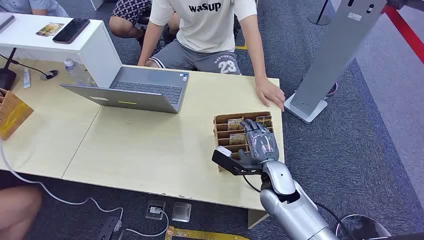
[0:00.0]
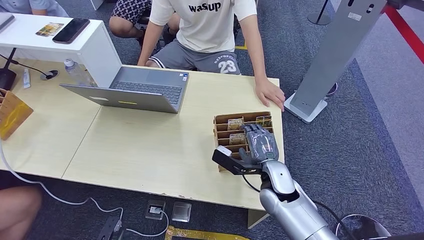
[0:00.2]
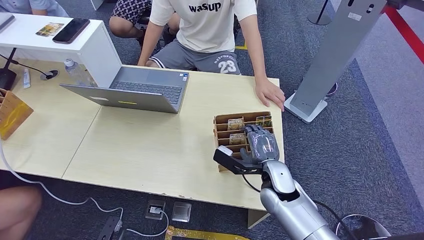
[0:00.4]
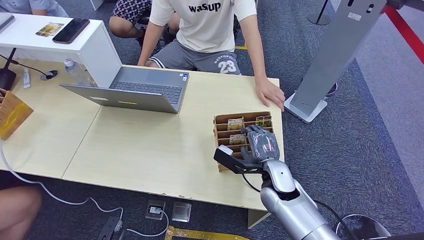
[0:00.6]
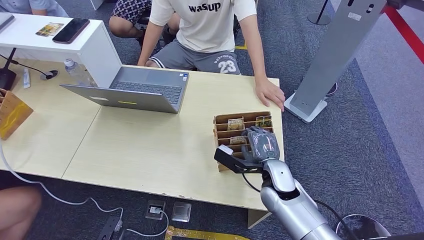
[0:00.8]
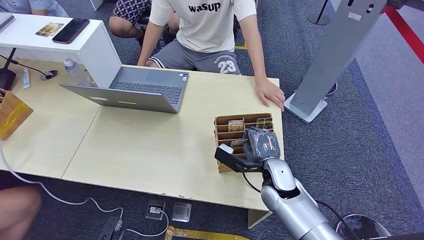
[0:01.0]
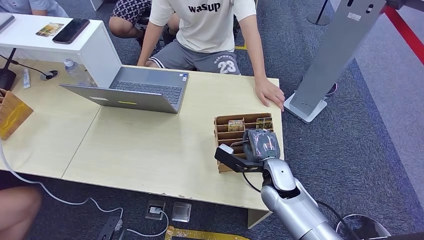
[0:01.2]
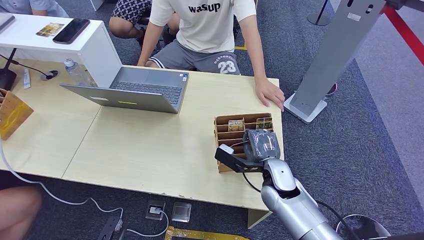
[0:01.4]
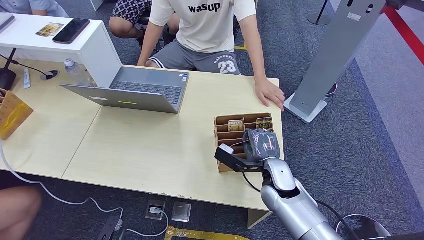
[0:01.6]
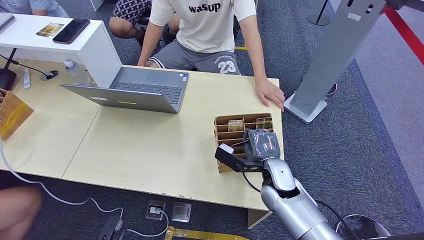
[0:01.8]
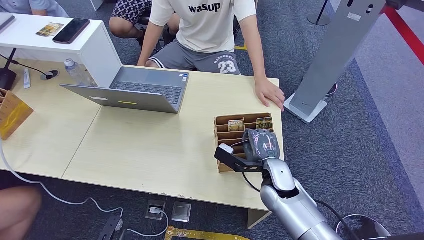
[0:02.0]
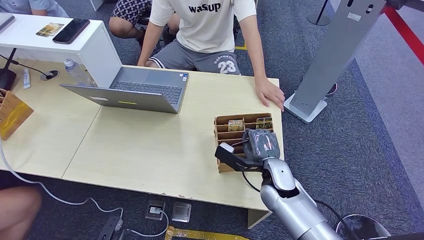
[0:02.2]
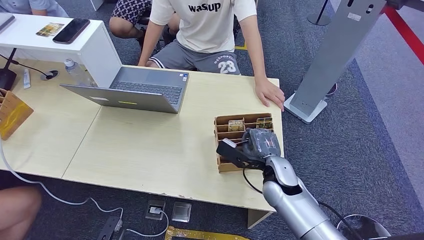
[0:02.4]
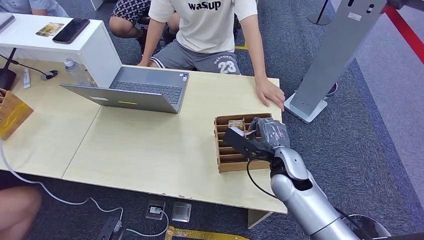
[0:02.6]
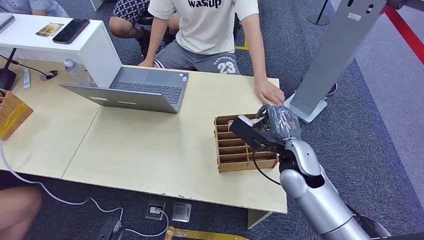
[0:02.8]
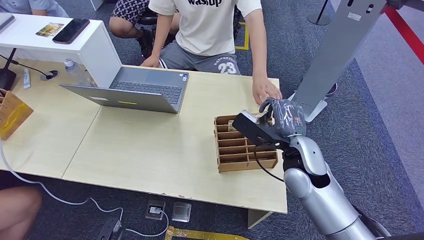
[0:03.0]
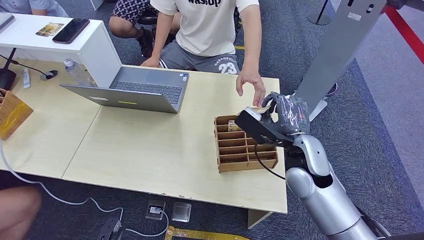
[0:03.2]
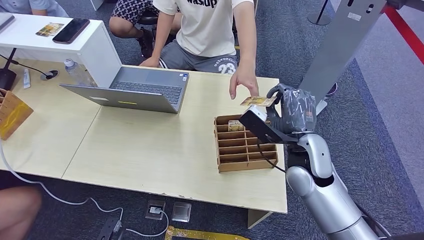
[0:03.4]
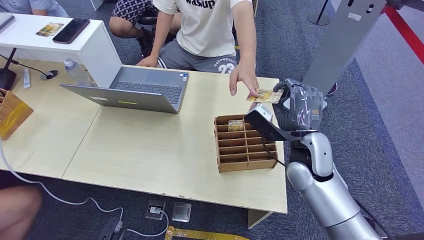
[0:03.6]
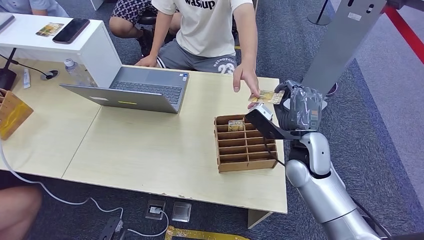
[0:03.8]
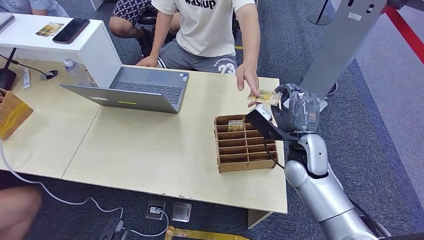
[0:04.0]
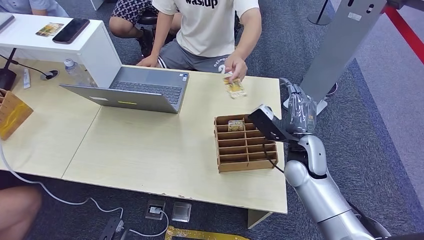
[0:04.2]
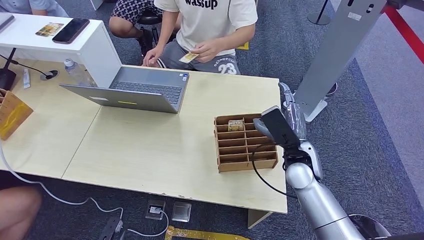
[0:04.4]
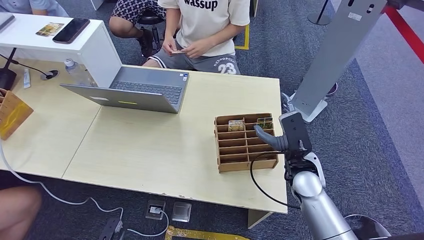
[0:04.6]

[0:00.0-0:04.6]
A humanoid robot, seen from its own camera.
Step, 0:00.0 to 0:02.8: Pick up the key card from the card box.
Step, 0:03.2 to 0:04.6: Hand the key card to the target.
0:01.6 to 0:03.0: The right hand shifts approximately 10 cm upward.
0:03.0 to 0:04.6: The right hand travels downward by approximately 5 cm.
